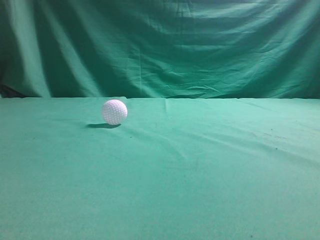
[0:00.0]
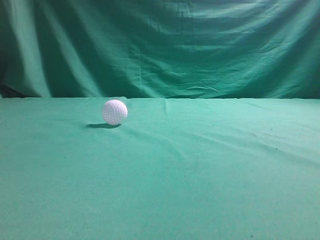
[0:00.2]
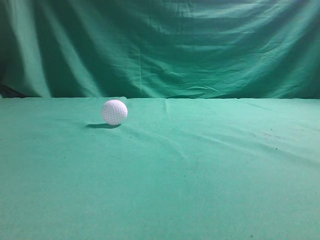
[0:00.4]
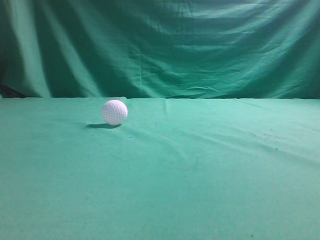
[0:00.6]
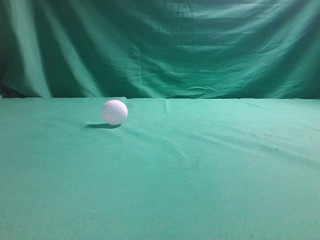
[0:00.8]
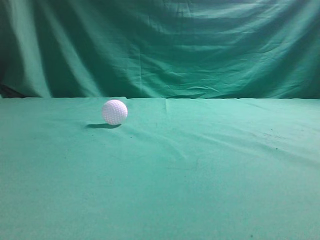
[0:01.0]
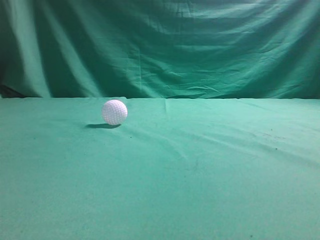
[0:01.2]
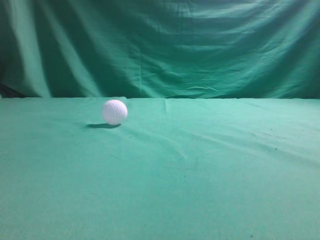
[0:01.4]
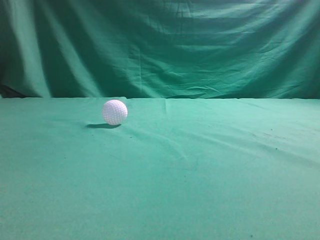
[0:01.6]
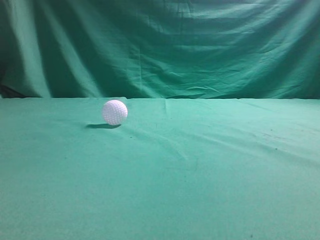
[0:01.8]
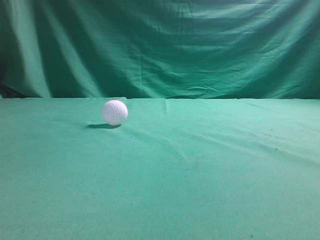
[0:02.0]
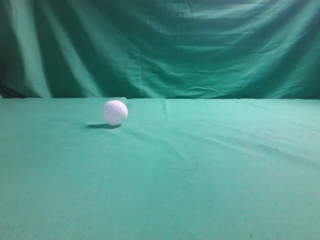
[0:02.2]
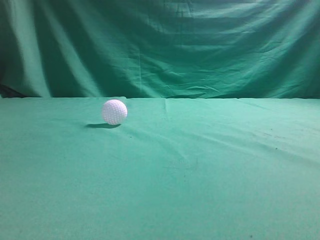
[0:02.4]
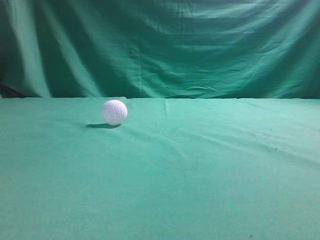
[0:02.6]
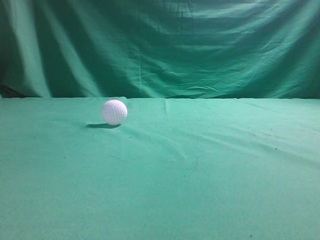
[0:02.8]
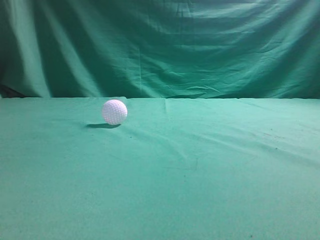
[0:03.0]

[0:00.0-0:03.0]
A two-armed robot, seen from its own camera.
Task of the whole recording: pick up the ball and place it on the plate, then pick up the ball from the plate and put it in the center of the table.
0:01.6 to 0:03.0: The two grippers keep their place.
